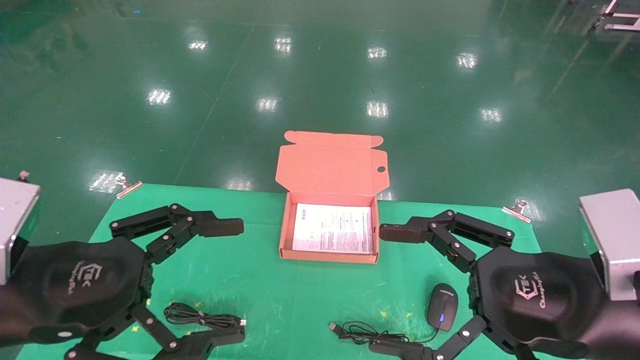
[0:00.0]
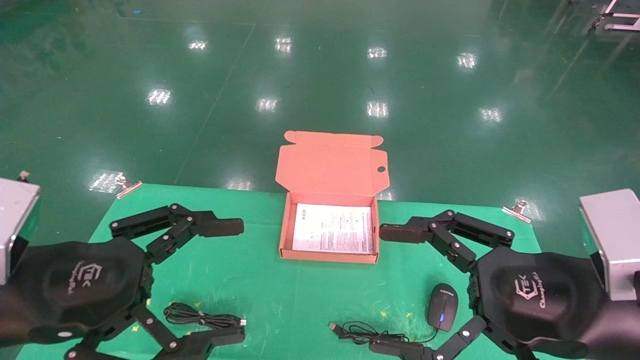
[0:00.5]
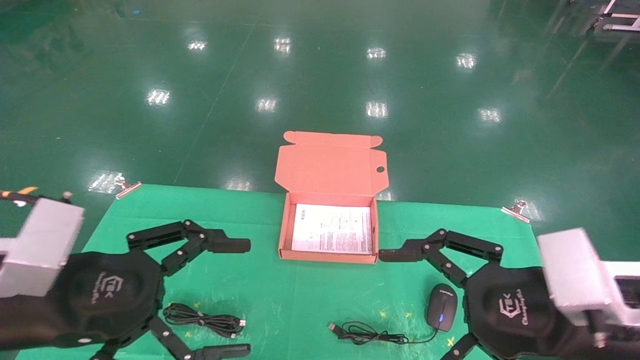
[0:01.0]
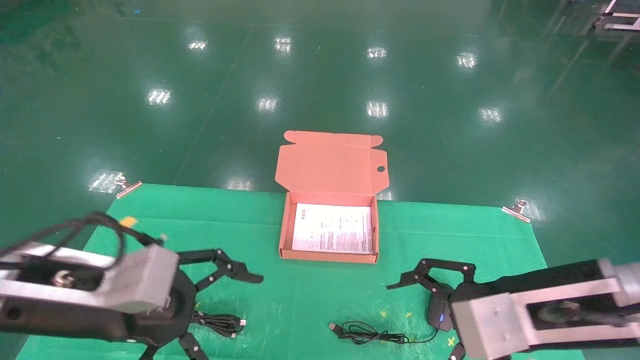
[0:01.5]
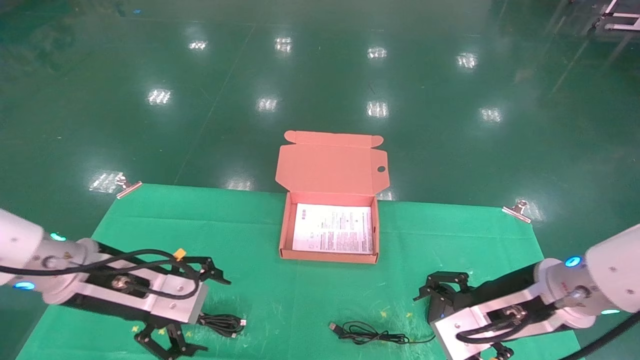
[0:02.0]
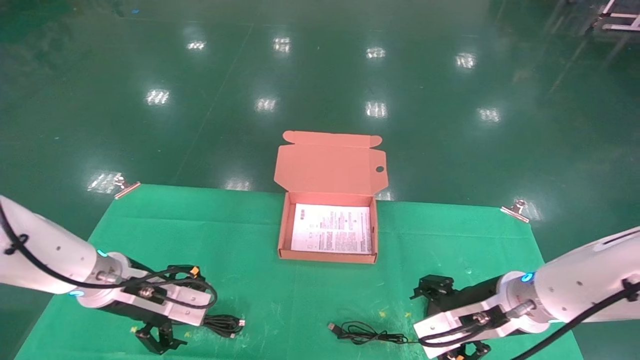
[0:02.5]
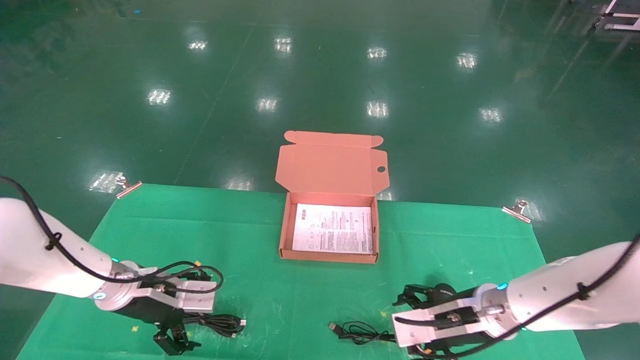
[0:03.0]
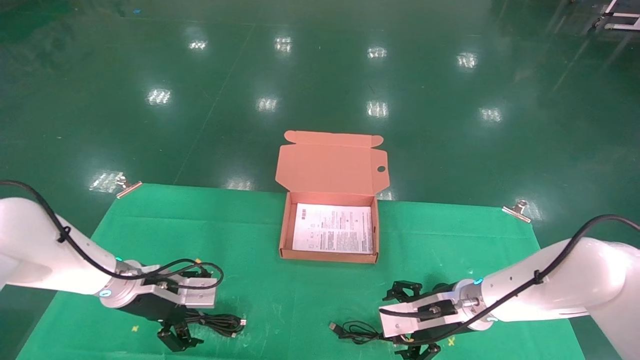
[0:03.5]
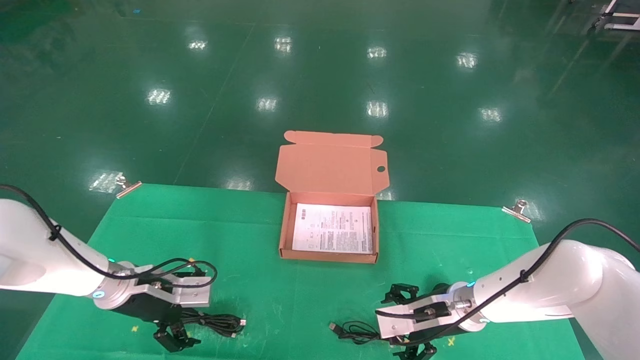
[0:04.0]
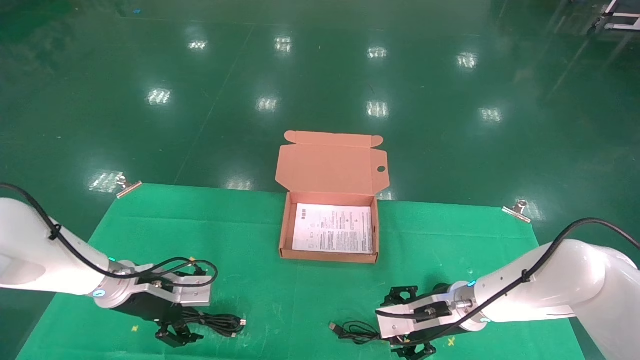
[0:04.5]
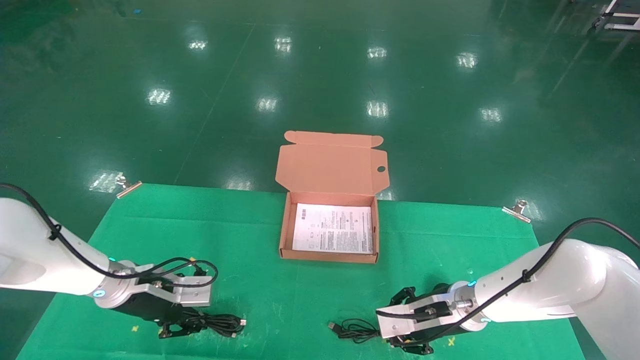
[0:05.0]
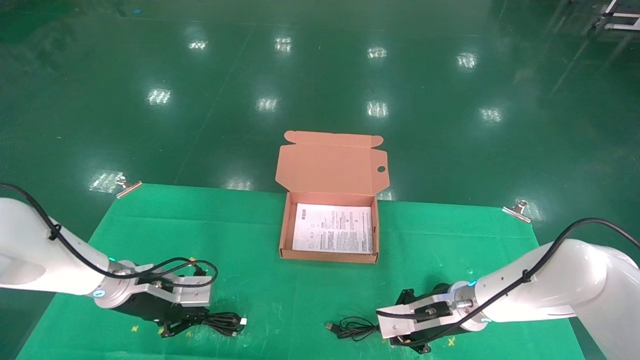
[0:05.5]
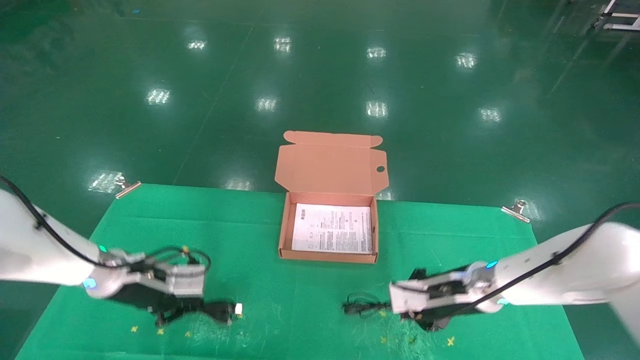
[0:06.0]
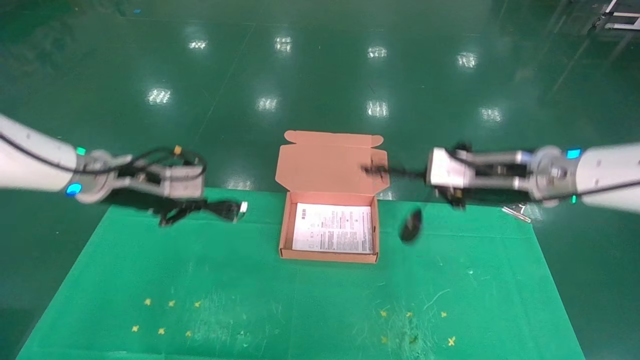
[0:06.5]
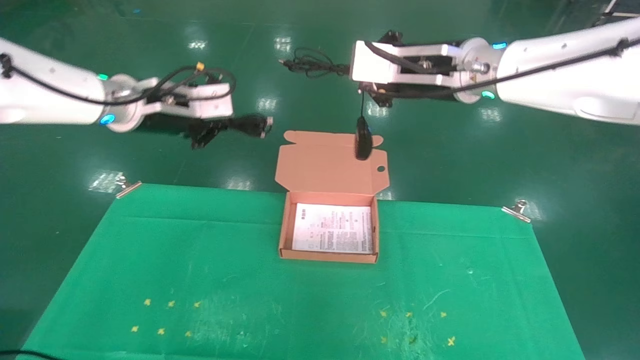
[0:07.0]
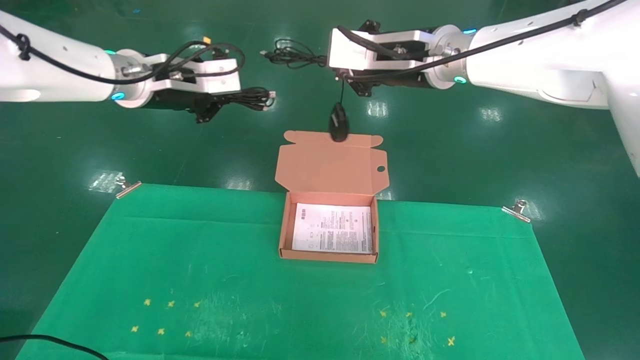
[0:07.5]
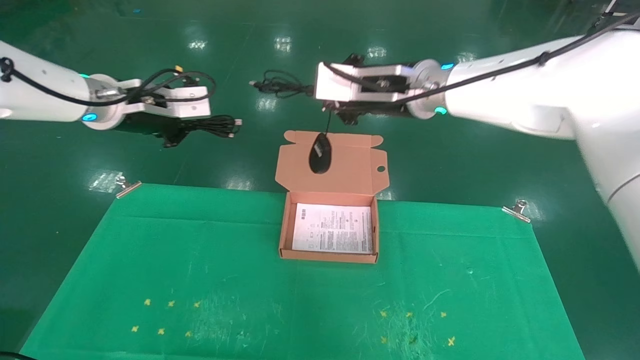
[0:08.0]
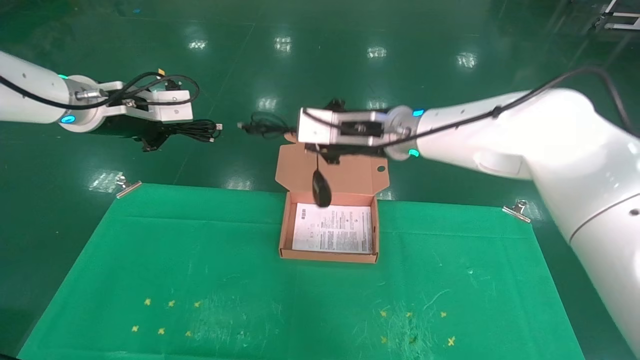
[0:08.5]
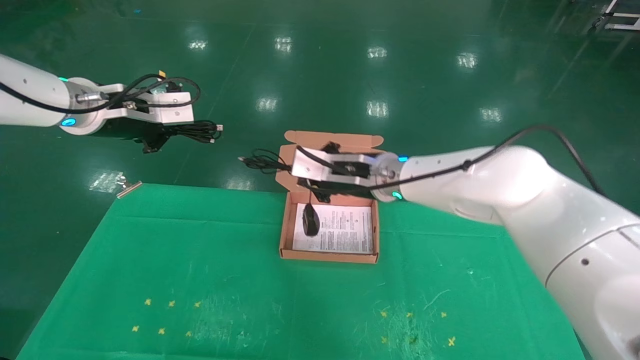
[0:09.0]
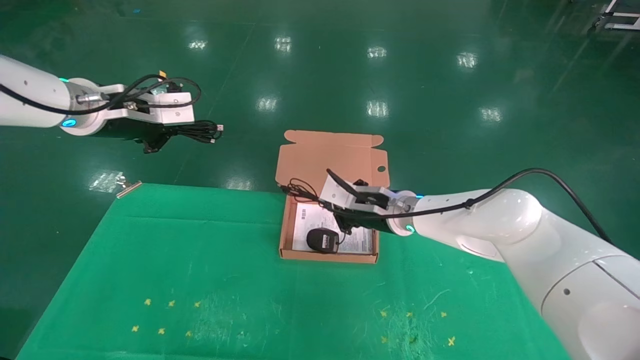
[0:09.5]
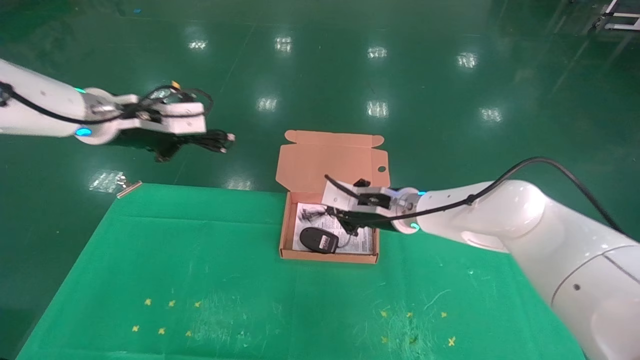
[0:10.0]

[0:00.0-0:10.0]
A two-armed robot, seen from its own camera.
Task of the whole recording: grasp data cable left put into box grasp mouse right put into box.
Step, 0:01.5 to 0:05.0: Grab and pick up both the mouse and power cord from the accessory packaging area at the same time.
0:00.0 to 0:02.0: The left gripper travels forward by roughly 10 cm, while the right gripper heads forward and downward, covering roughly 10 cm.
0:02.0 to 0:04.0: Both grippers travel together forward and downward, roughly 15 cm.
0:04.0 to 0:06.0: The left gripper closes up. The right gripper shifts by about 5 cm, and closes.
0:06.0 to 0:08.0: The left gripper goes some 25 cm upward; the right gripper moves upward and to the left, approximately 30 cm.
0:08.0 to 0:10.0: The right gripper goes about 20 cm downward.

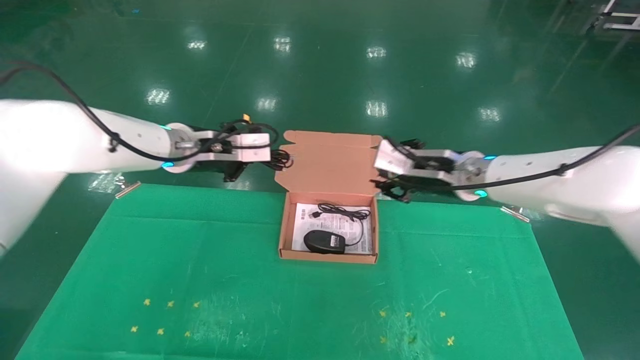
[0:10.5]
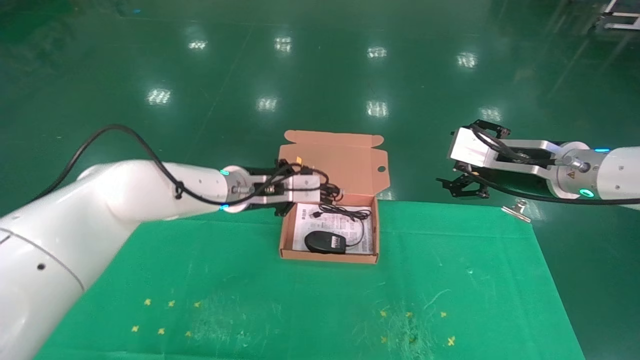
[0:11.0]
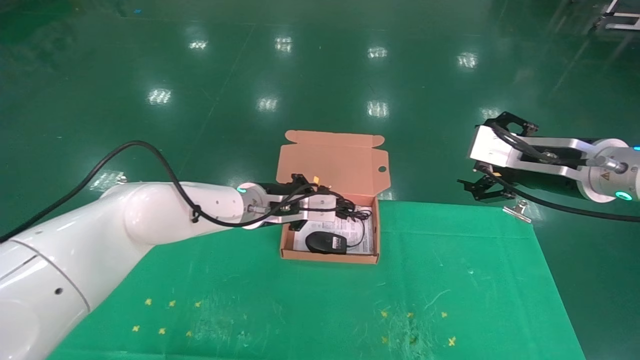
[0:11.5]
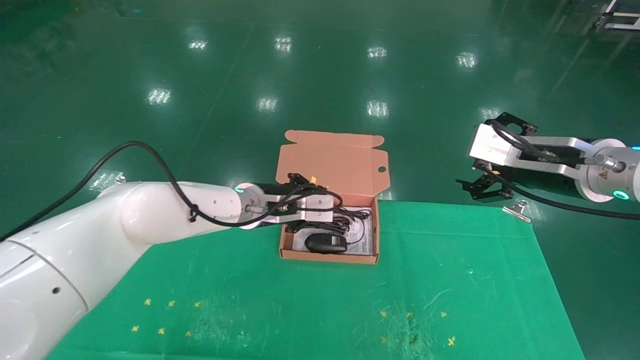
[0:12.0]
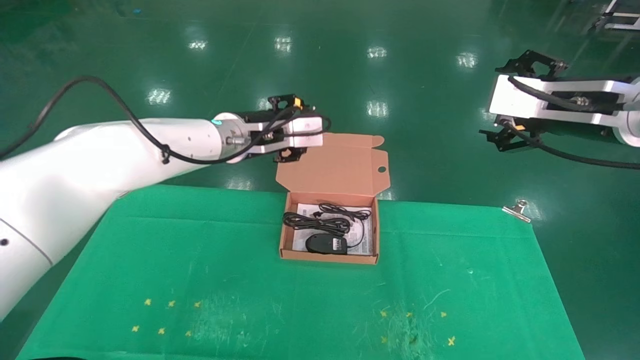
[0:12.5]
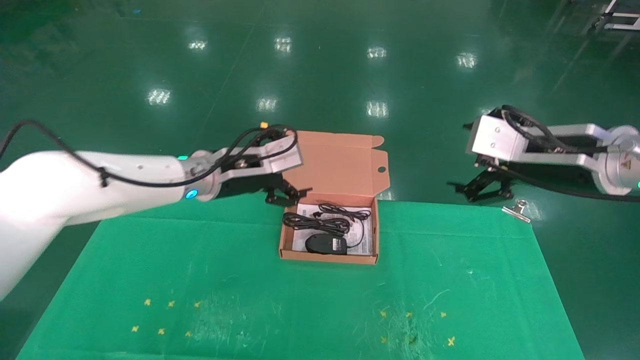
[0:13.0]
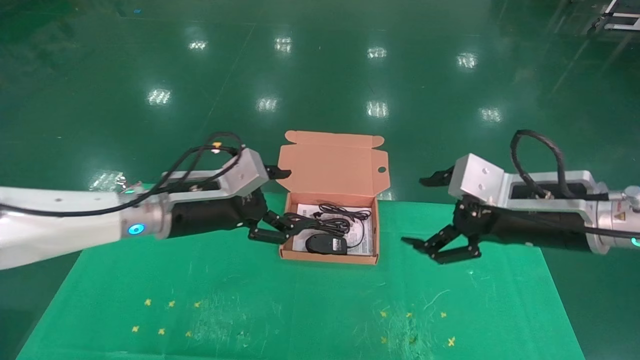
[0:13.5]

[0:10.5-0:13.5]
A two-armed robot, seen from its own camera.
Task of the whole recording: grasp data cable left put into box grasp mouse right put into box.
0:10.5 to 0:12.0: The left gripper goes some 10 cm to the right and downward; the right gripper shifts about 15 cm backward, to the right and upward, and opens.
0:12.0 to 0:13.5: The left gripper shifts roughly 10 cm to the left and backward, and opens up; the right gripper shifts by about 5 cm.

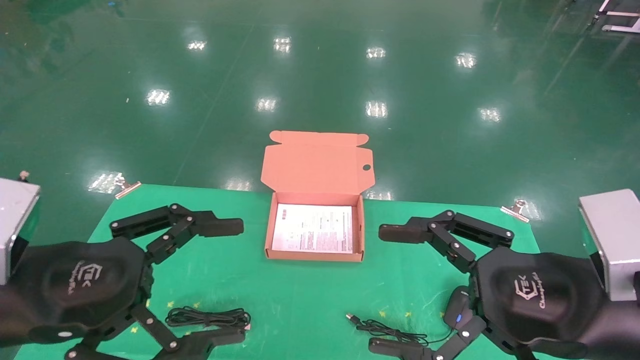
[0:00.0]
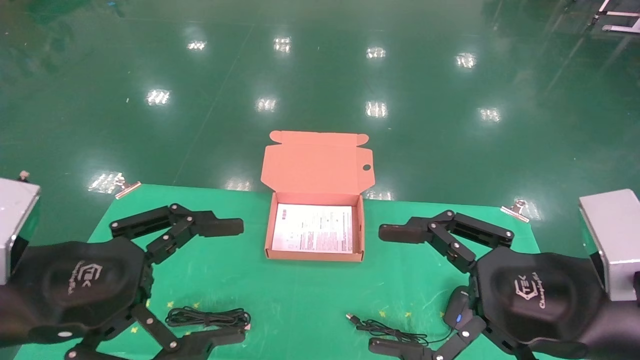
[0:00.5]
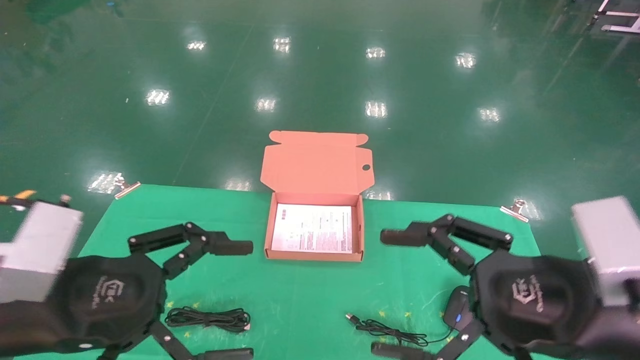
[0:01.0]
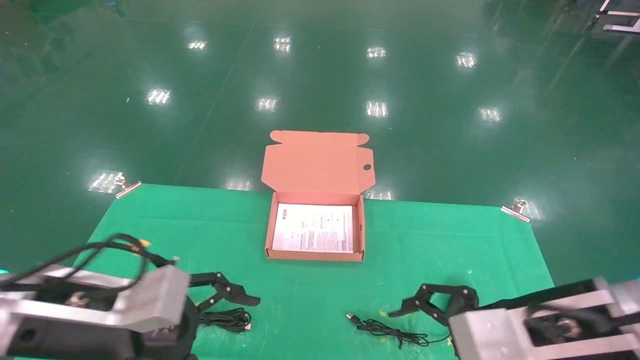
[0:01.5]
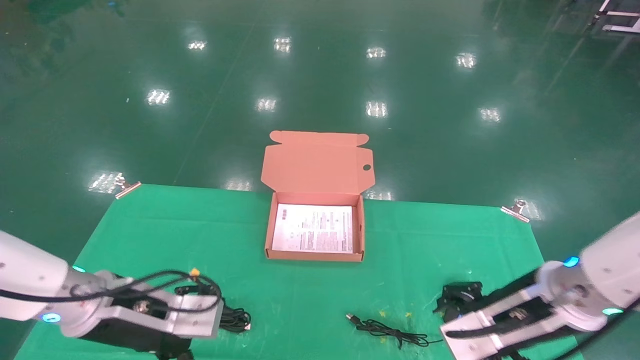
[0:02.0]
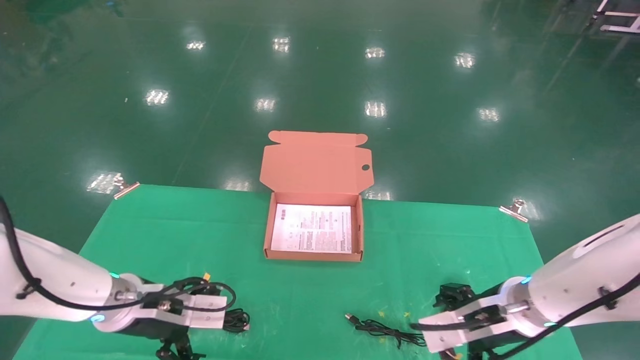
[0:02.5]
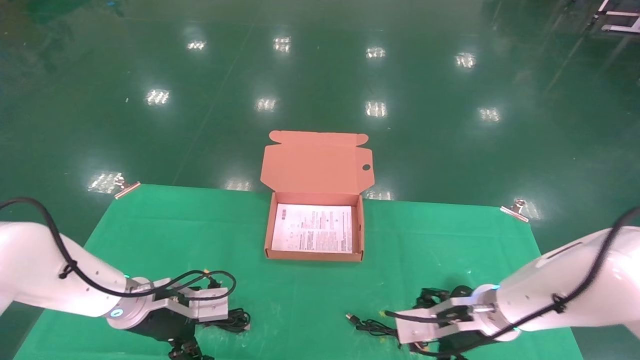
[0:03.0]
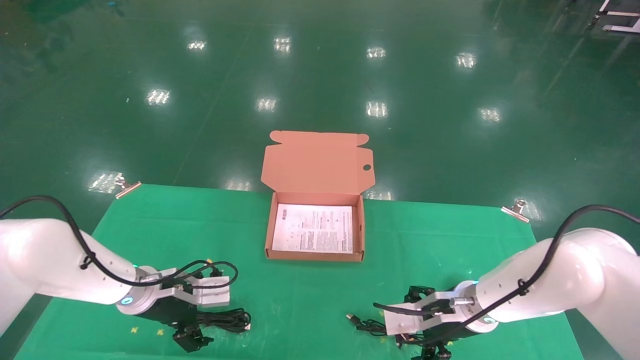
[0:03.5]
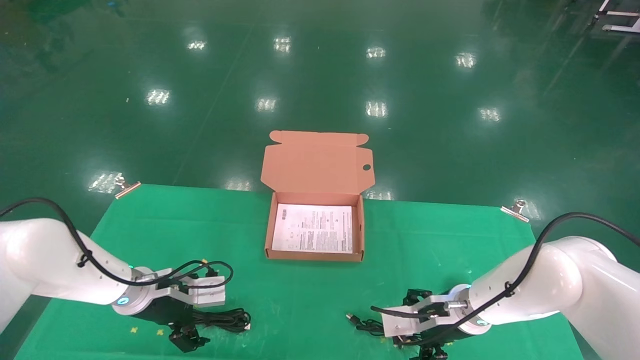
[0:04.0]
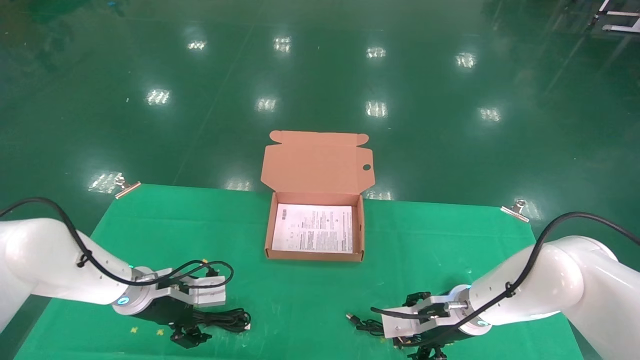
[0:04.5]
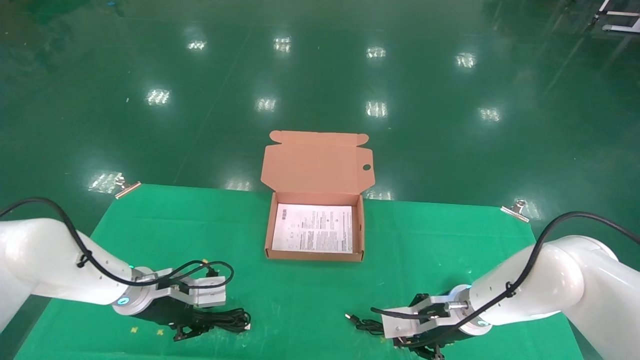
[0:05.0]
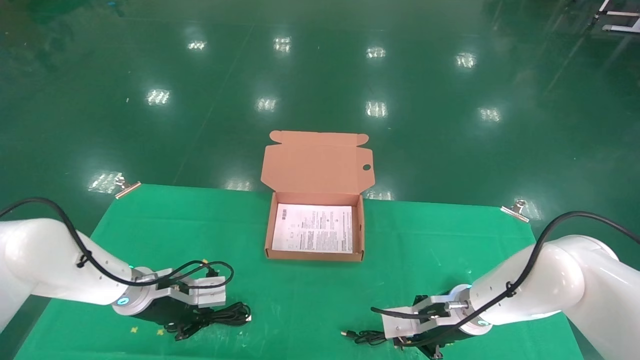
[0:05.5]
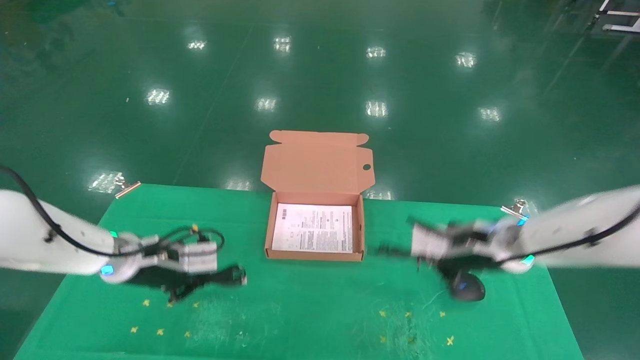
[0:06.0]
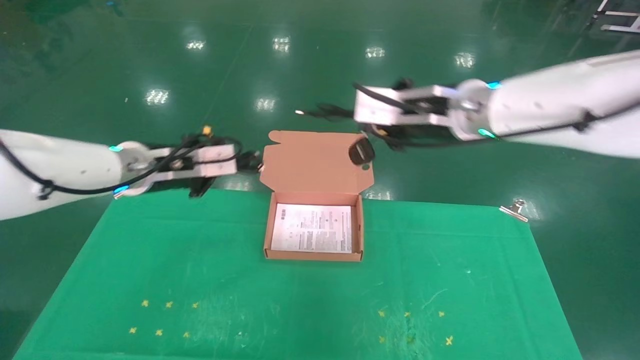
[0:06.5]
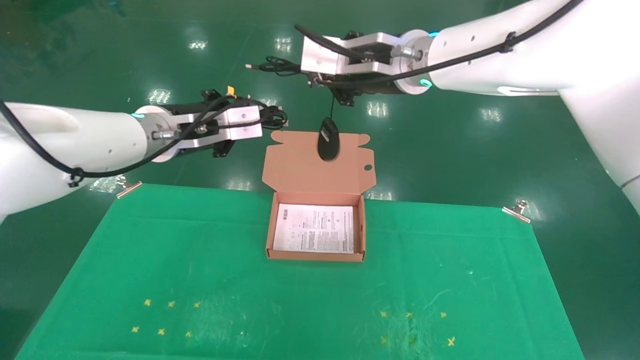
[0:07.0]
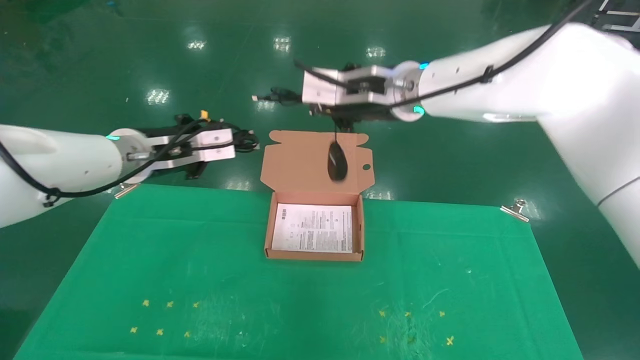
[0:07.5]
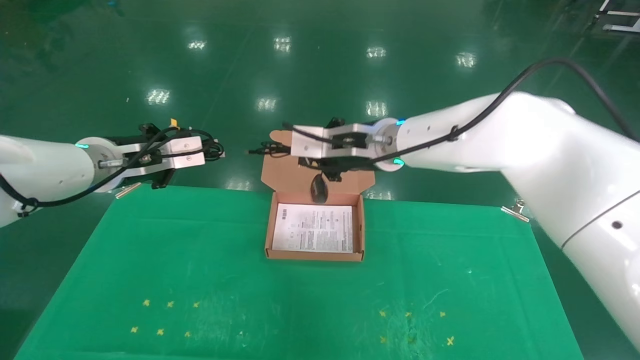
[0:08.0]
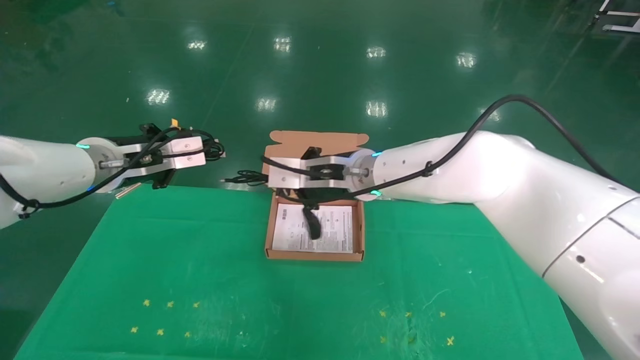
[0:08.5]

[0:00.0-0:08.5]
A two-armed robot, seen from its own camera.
Task of the whole recording: grasp data cable left put into box grasp mouse right put into box.
Step, 0:02.0 to 0:06.5: Grab and pick up both the mouse and power cord from the accessory packaging area at the same time.
0:00.0 to 0:02.0: The two grippers go roughly 15 cm forward and downward.
0:02.0 to 0:04.0: Both grippers move forward and downward, approximately 15 cm.
0:04.0 to 0:06.5: The grippers both shift upward by approximately 25 cm. The right gripper closes its fingers, while the left gripper closes.
0:06.5 to 0:08.5: The right gripper moves to the left and downward, some 15 cm.
